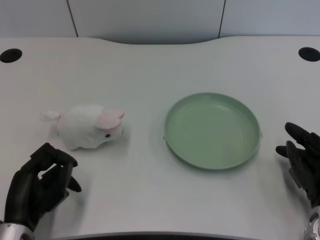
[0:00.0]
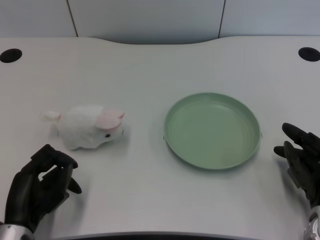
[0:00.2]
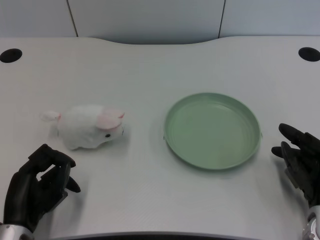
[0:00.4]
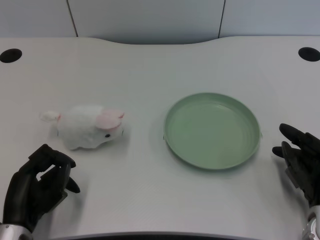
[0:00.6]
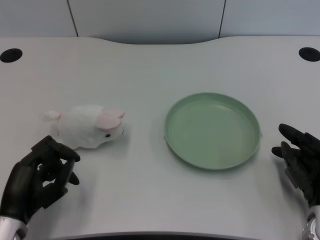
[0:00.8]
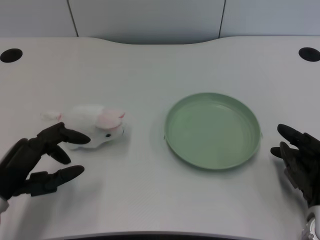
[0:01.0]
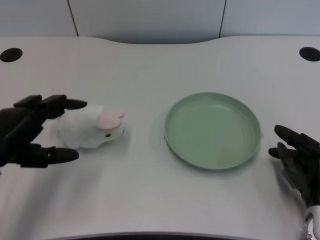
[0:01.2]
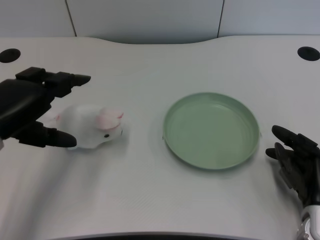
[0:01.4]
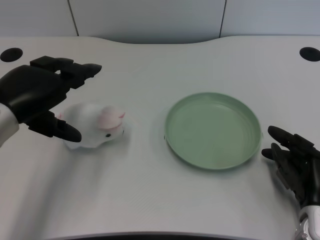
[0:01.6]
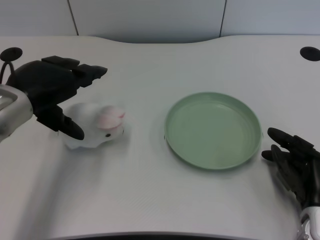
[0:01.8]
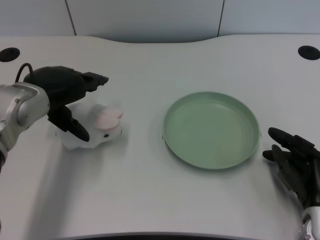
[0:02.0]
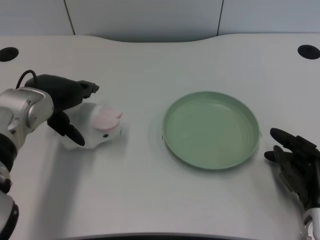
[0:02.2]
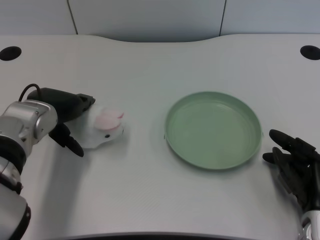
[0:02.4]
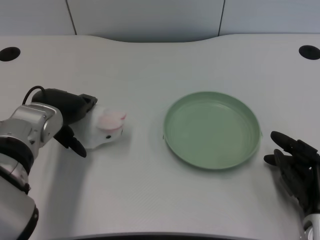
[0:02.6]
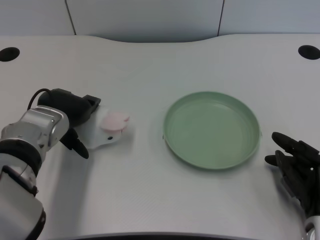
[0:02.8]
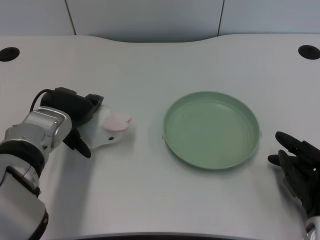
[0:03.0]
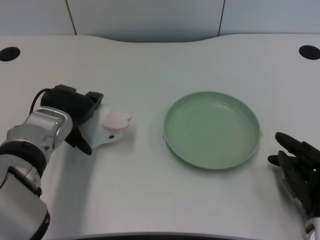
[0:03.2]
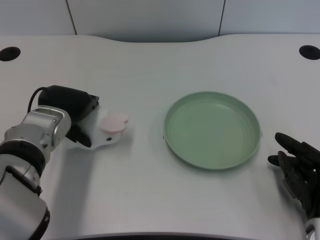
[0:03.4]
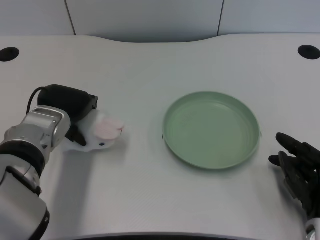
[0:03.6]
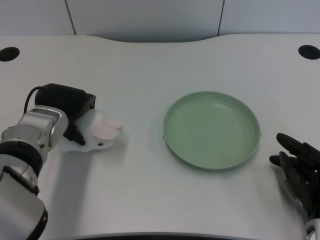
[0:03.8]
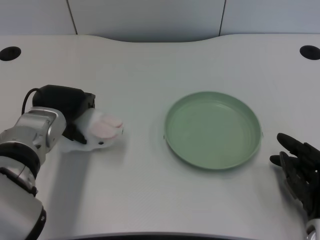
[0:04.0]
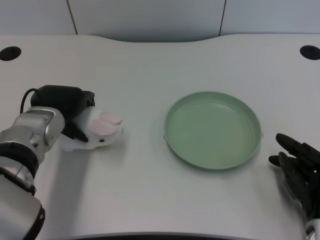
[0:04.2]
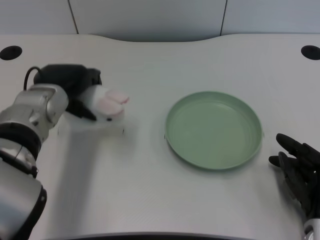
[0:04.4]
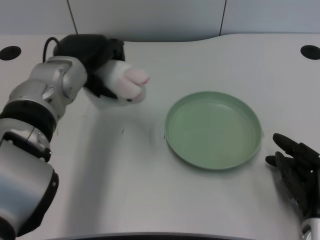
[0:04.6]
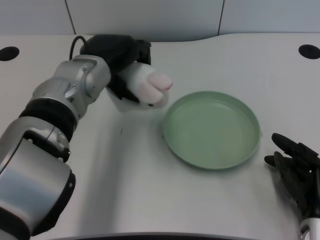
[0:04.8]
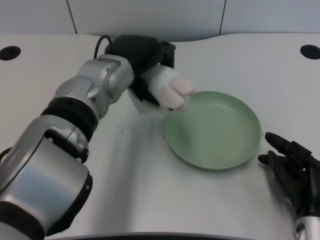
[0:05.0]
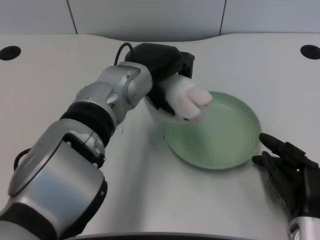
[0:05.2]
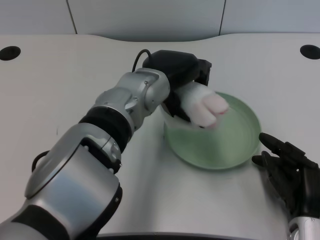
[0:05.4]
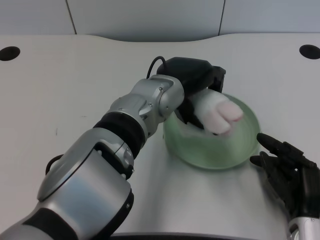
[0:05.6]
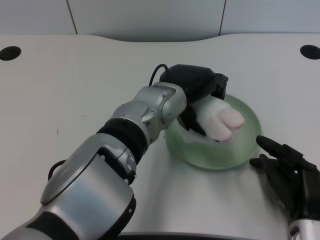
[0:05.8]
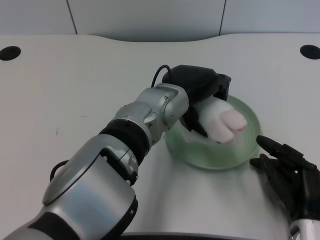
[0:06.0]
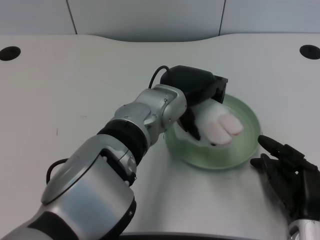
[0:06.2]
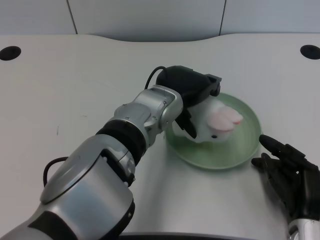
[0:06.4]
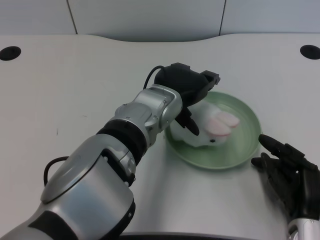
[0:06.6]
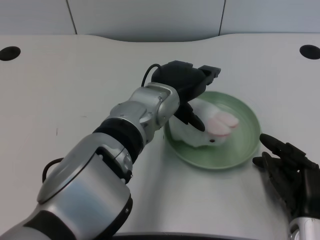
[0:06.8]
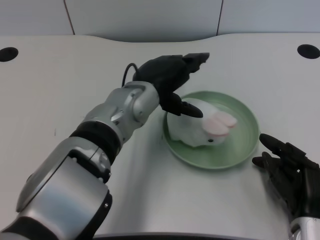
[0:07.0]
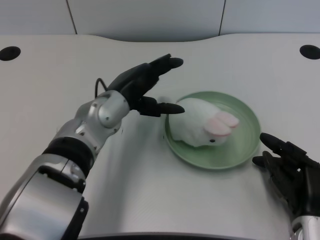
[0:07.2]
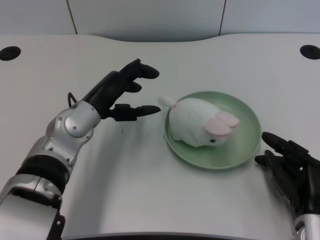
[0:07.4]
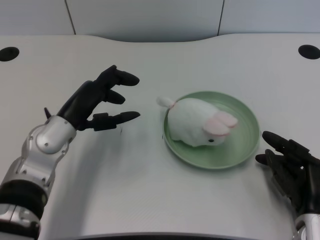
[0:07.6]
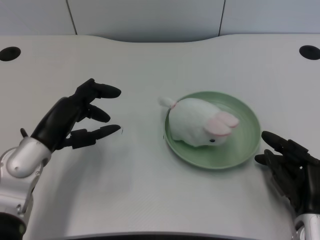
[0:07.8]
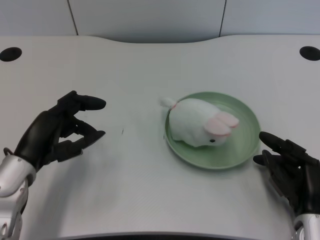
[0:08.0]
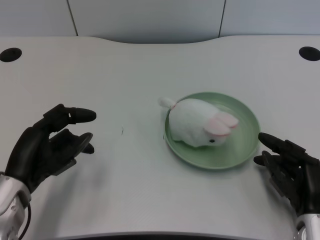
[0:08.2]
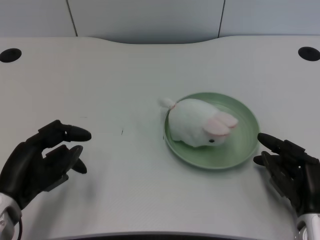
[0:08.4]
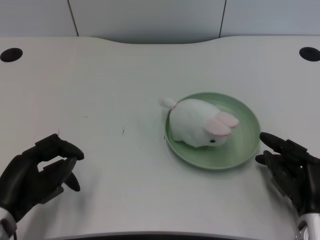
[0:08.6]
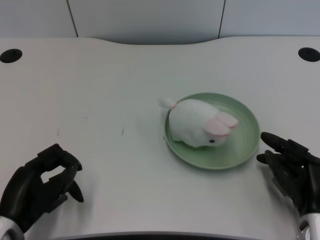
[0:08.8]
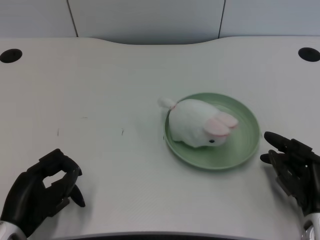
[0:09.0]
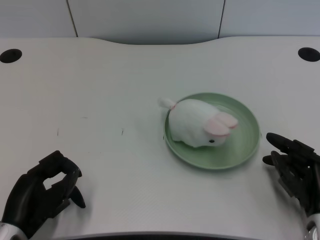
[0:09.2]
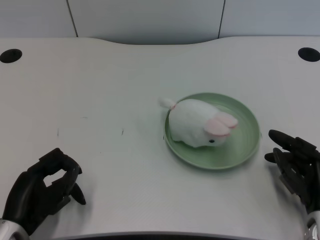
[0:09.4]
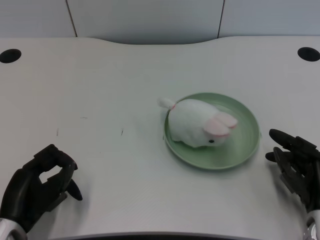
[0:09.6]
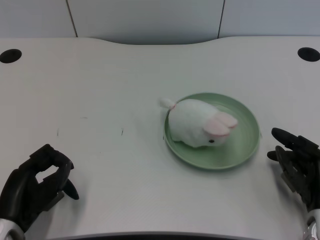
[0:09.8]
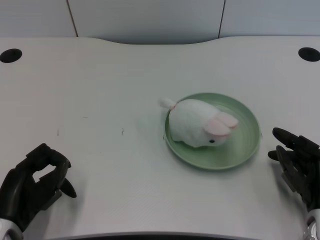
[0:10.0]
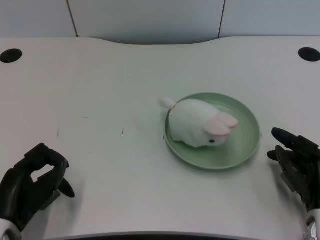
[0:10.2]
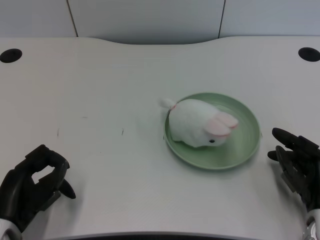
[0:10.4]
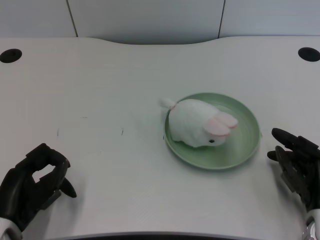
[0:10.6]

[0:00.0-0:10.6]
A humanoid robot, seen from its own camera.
Task of the whole recording: pick up the rabbit doll from the table and place it on the plate.
Step, 0:00.8 to 0:04.2: Grasp the rabbit doll with the left gripper.
Step, 0:04.4 to 0:06.4: Place the rabbit doll into the plate with the left gripper.
0:01.6 to 0:03.0: The left hand travels downward, to the right and forward by roughly 10 cm.
0:03.0 to 0:04.6: The left hand moves upward, some 5 cm.
0:04.6 to 0:06.0: The left hand moves to the right, about 15 cm.
0:06.0 to 0:07.6: The left hand is displaced to the left by roughly 15 cm.
0:07.6 to 0:09.0: The left hand shifts approximately 15 cm backward, downward and to the left.
0:09.0 to 0:10.6: The hands stay close to where they were, moving slightly.

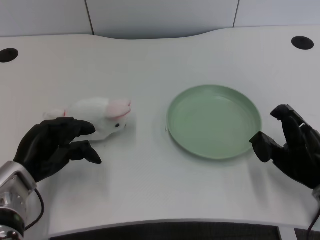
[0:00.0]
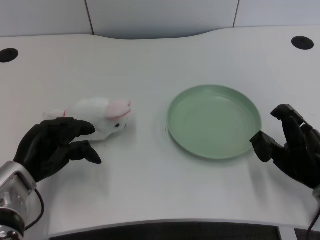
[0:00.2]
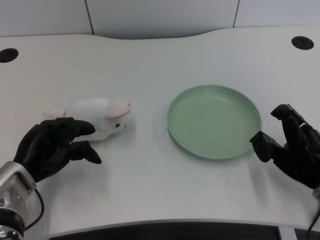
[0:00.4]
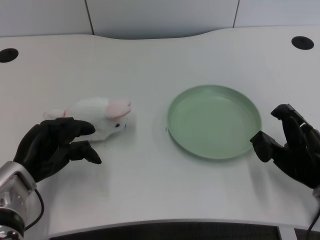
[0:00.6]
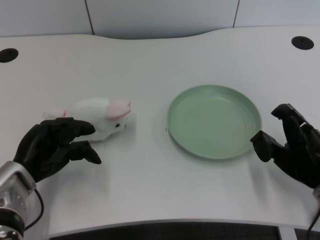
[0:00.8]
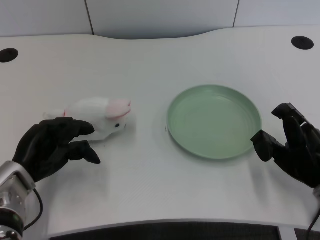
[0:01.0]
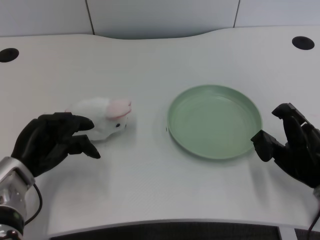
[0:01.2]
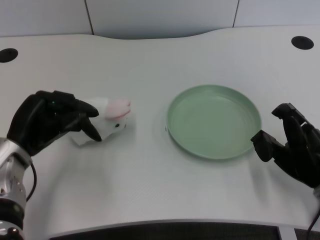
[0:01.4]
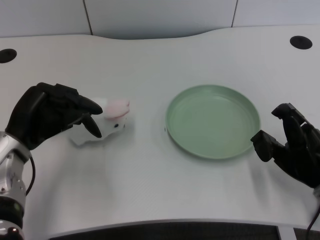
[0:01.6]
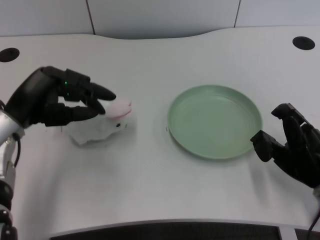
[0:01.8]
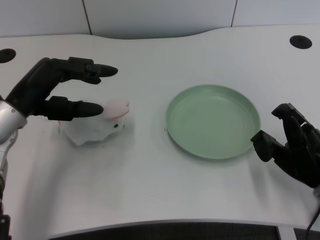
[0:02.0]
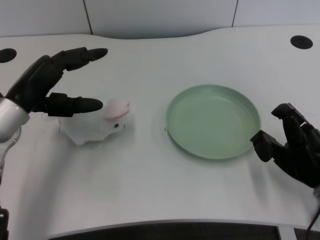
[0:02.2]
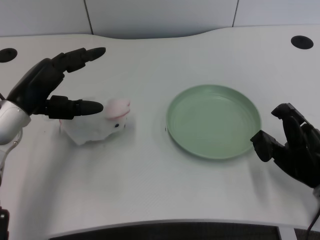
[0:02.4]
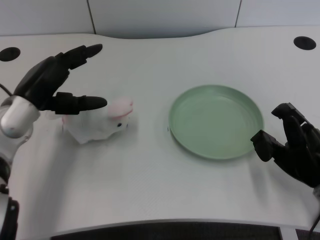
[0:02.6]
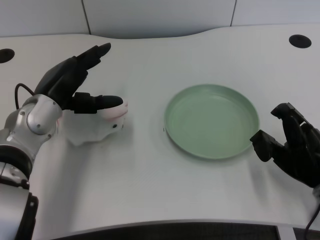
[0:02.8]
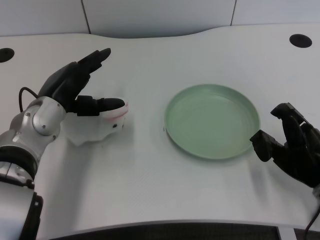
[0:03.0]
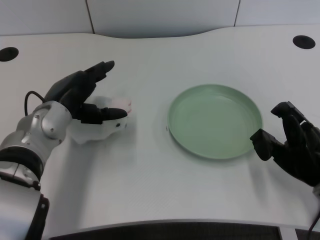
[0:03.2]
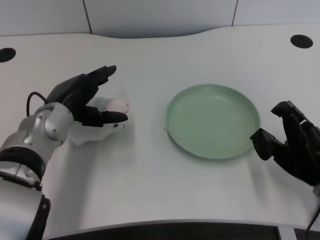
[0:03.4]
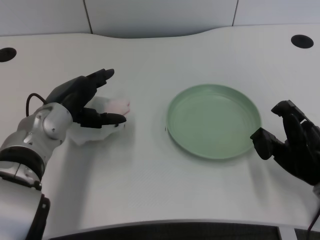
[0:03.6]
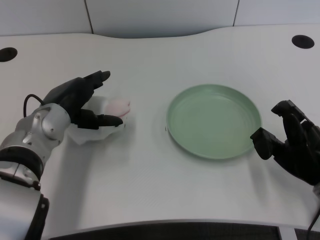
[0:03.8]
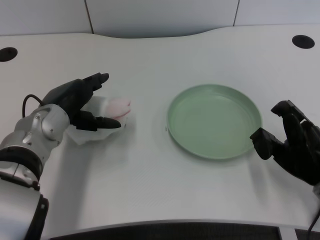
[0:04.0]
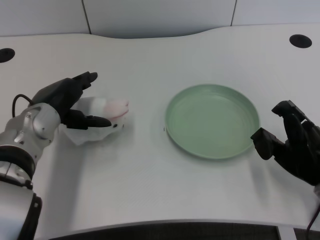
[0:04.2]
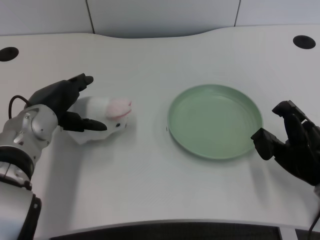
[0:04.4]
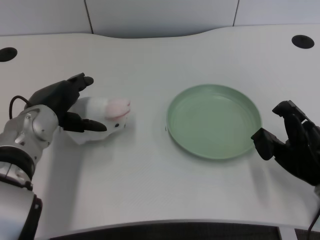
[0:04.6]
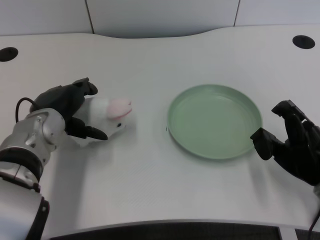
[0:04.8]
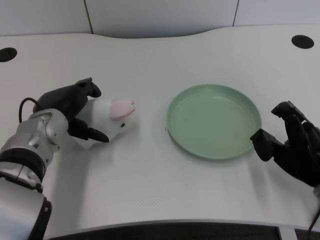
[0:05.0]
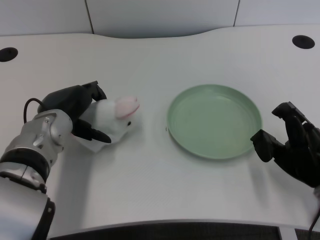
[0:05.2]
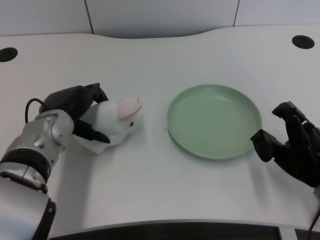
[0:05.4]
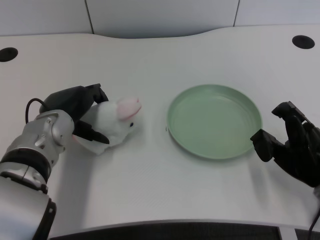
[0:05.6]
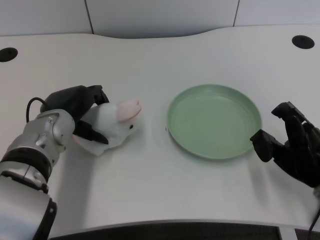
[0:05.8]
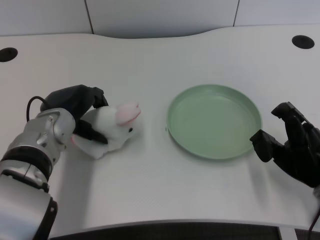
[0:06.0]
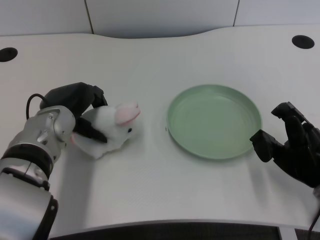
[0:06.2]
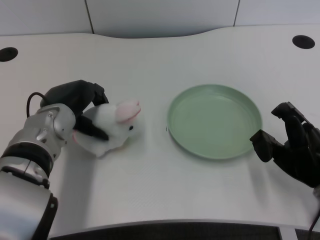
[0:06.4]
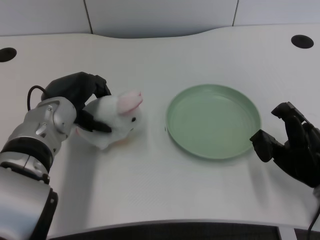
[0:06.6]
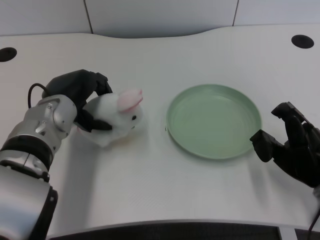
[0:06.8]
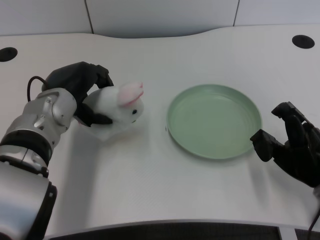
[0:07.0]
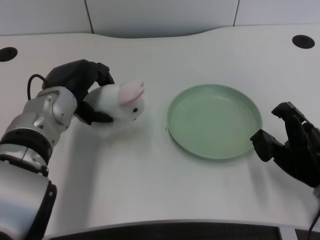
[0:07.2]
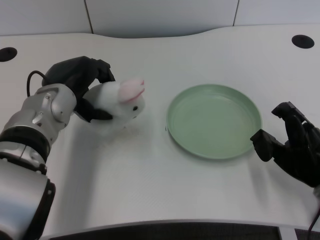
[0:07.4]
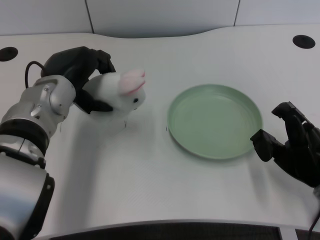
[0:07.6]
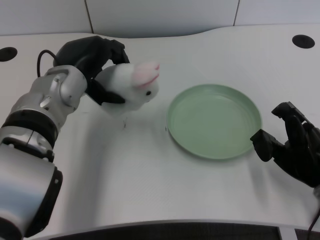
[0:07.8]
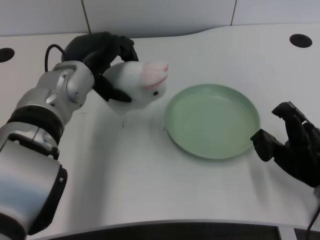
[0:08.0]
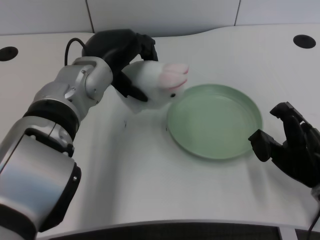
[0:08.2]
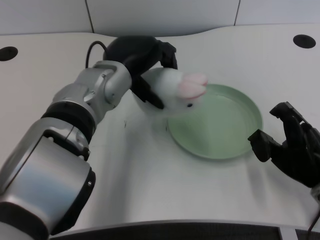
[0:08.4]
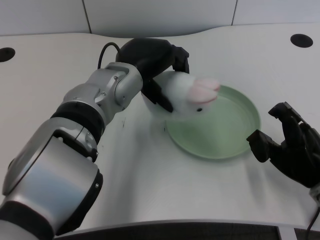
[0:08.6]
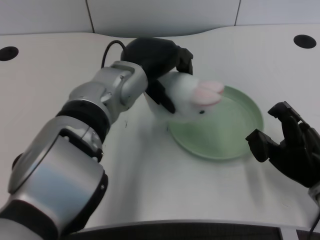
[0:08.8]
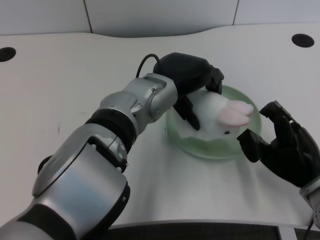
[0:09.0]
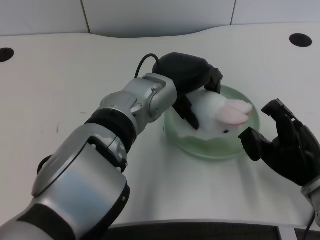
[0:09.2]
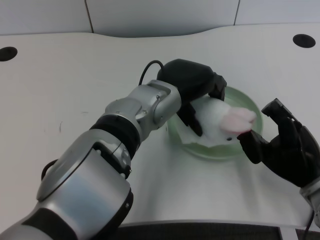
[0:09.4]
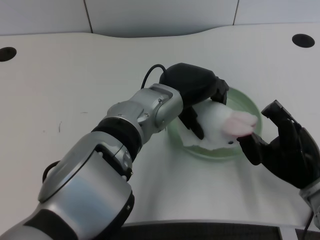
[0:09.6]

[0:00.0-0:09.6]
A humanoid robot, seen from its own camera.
Task of the whole recording: pick up the rabbit doll from the table and place it on the plate.
Step, 0:01.0 to 0:06.8: Grasp the rabbit doll with the left gripper.
0:01.6 to 0:03.2: The left hand goes some 5 cm to the right.
0:03.2 to 0:06.4: The hands make only small movements.
0:06.4 to 0:08.0: The left hand heads upward, covering some 5 cm.
0:08.0 to 0:09.6: The left hand shifts about 10 cm to the right.

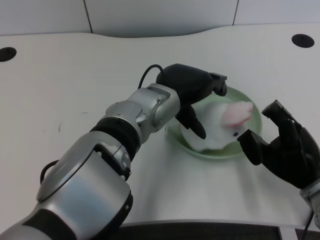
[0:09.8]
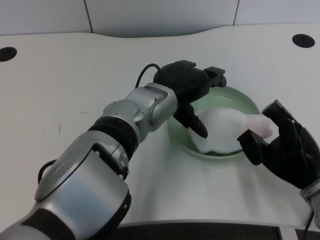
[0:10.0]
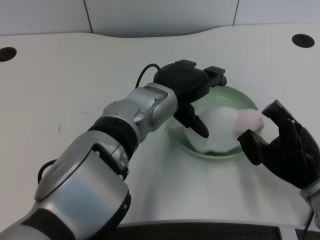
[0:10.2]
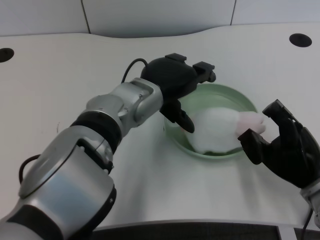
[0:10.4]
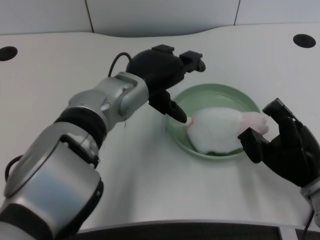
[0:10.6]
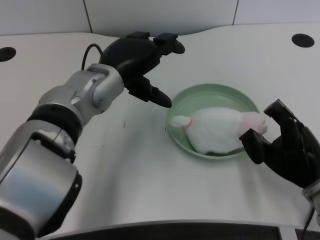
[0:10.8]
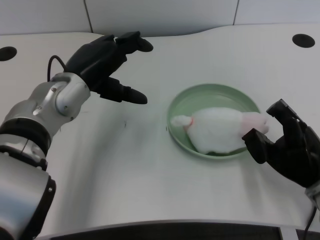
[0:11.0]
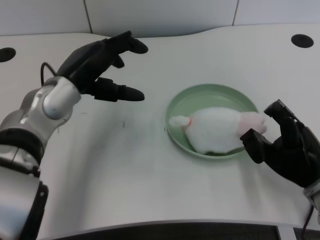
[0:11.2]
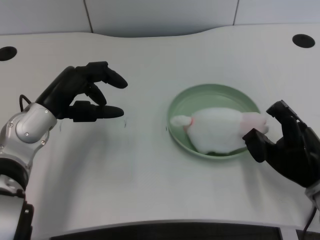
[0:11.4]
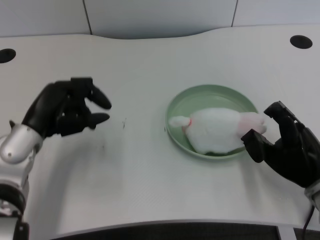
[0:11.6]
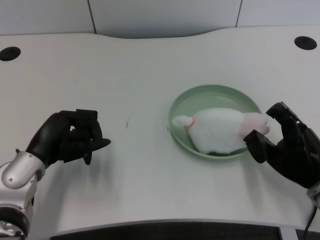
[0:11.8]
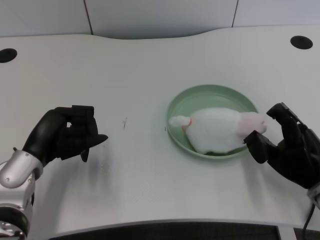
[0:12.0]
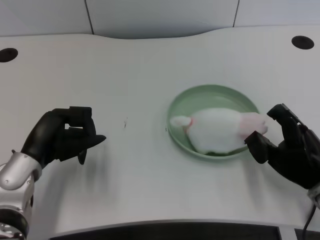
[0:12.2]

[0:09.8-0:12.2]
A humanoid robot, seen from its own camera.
Task of the whole recording: pick up the rabbit doll from the table and place it on the plate.
0:09.8 to 0:11.0: The left hand travels to the left by some 15 cm.
0:11.0 to 0:12.2: The left hand moves downward, to the left and backward, some 15 cm.
